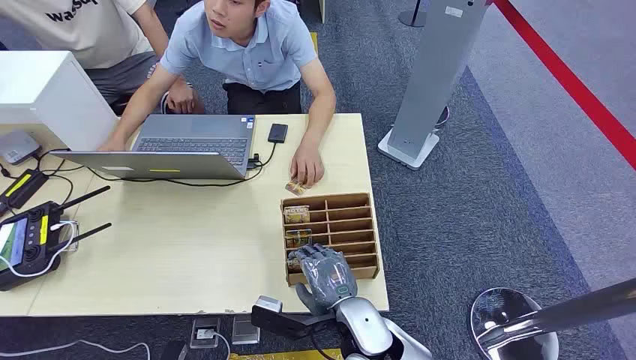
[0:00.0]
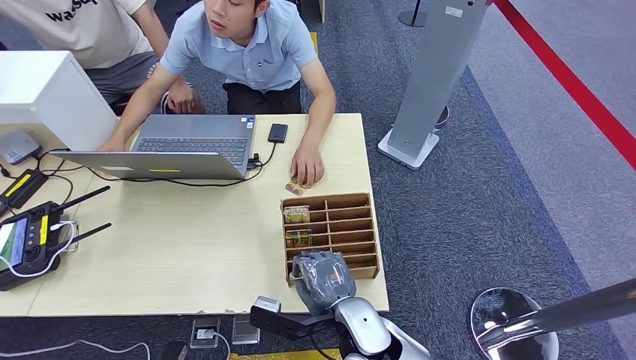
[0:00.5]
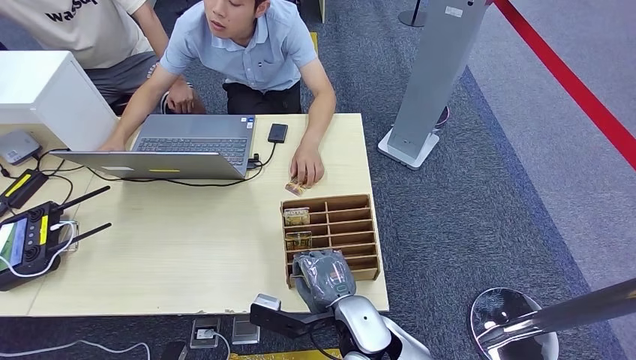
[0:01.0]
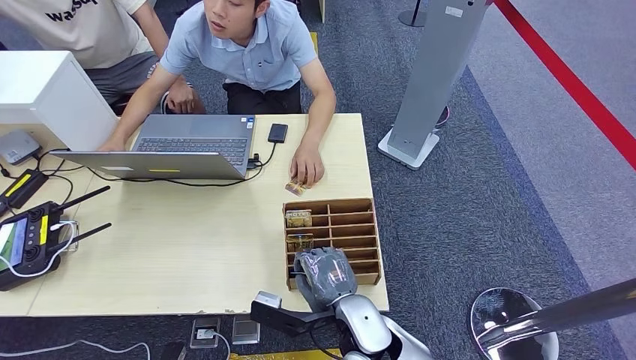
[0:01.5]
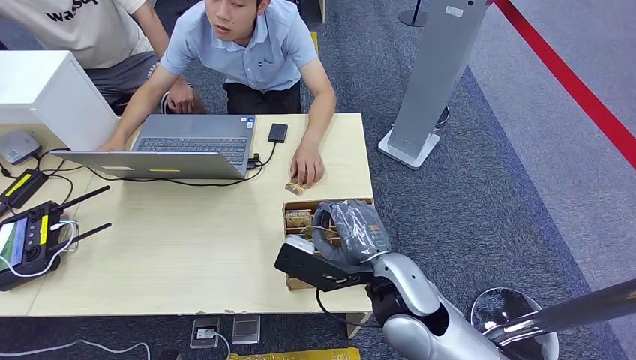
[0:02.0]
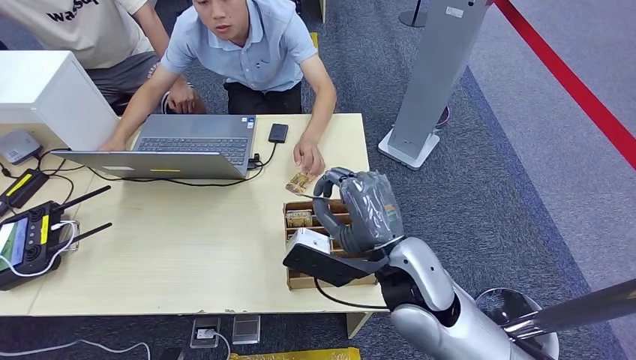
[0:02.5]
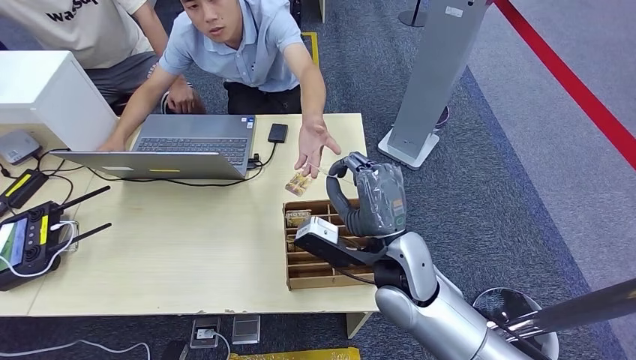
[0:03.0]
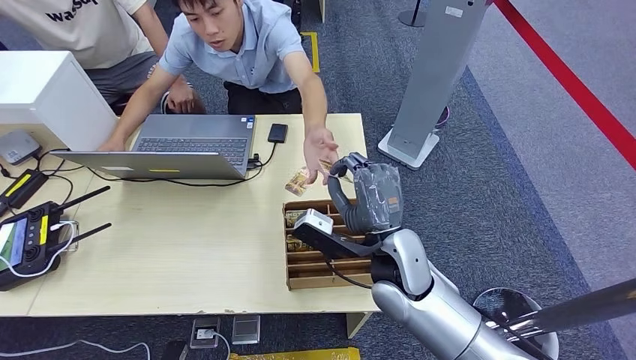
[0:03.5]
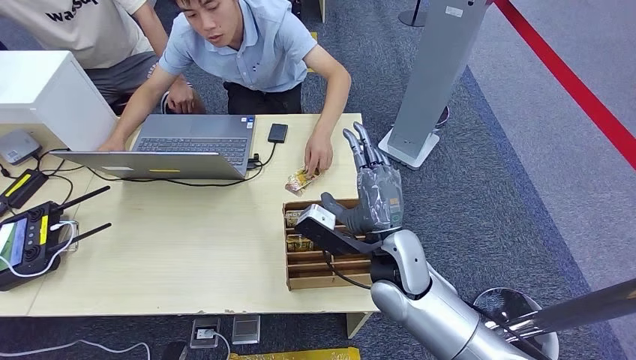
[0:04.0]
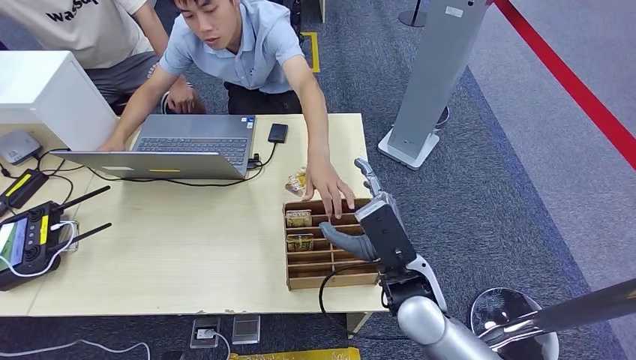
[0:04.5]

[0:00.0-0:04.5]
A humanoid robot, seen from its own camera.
Step, 0:00.0 to 0:02.0: Pick up the key card from the card box.
Step, 0:02.5 to 0:04.5: Hand the key card to the target.
